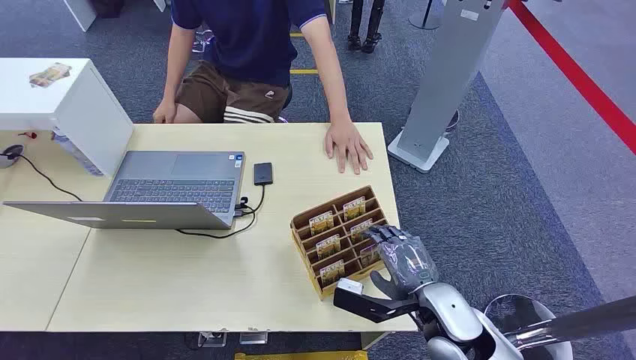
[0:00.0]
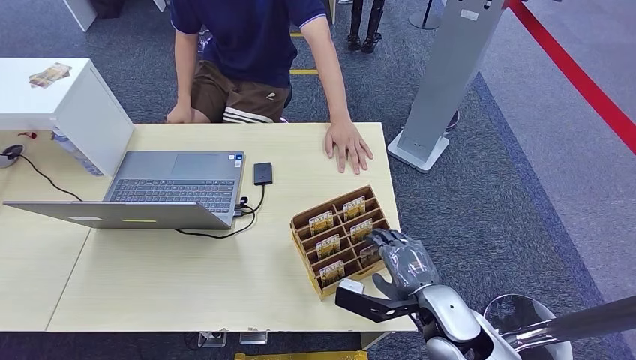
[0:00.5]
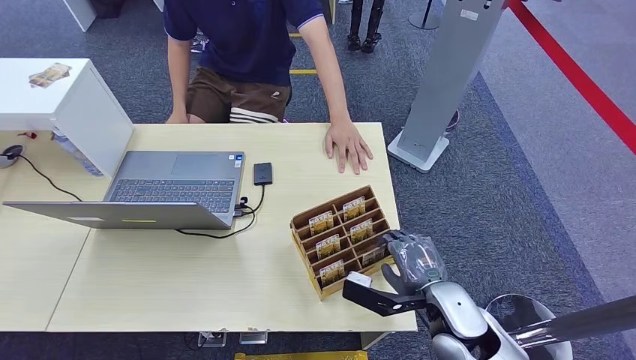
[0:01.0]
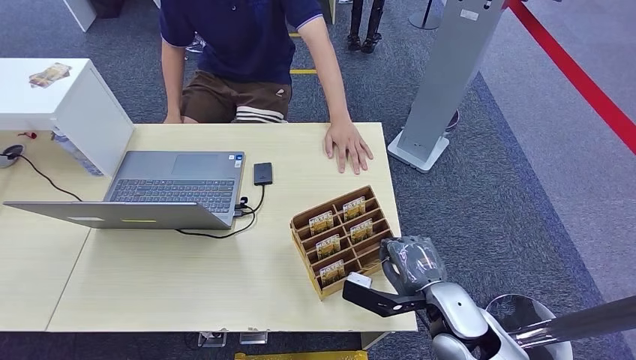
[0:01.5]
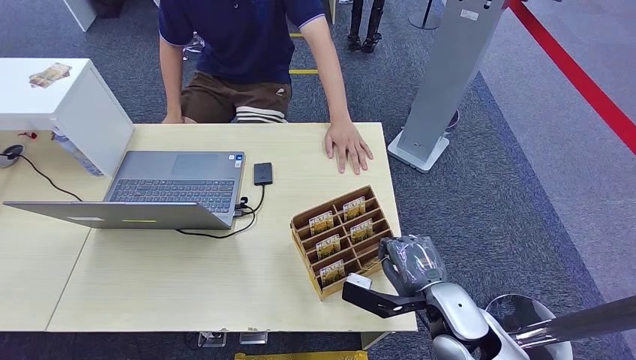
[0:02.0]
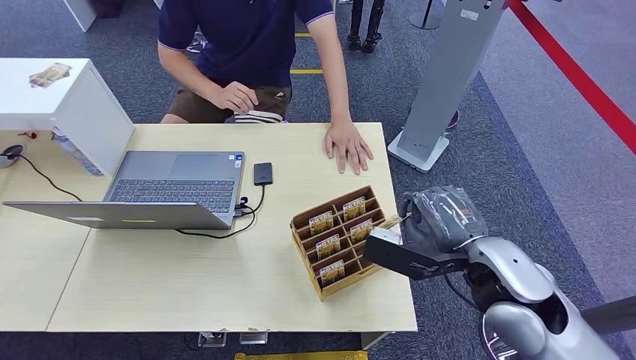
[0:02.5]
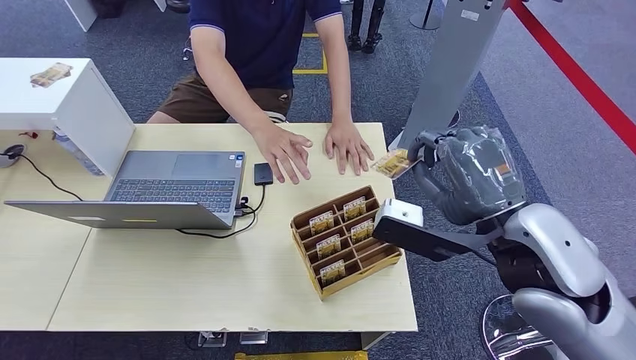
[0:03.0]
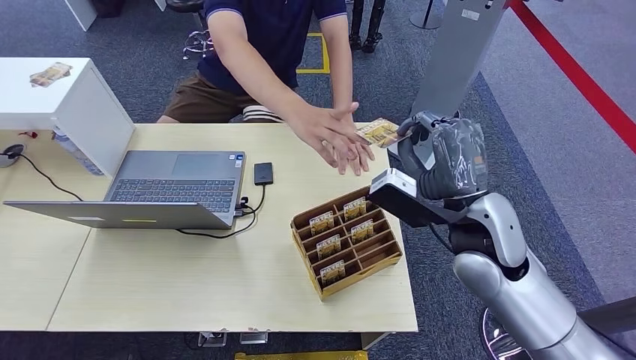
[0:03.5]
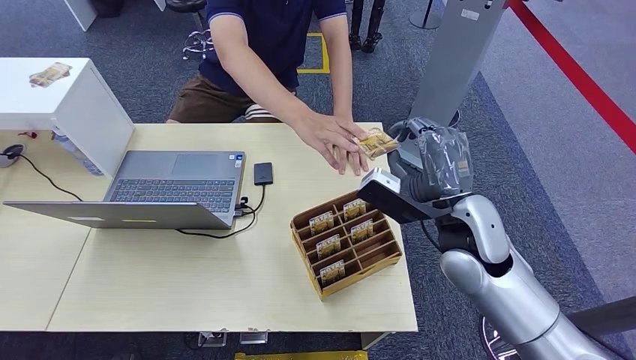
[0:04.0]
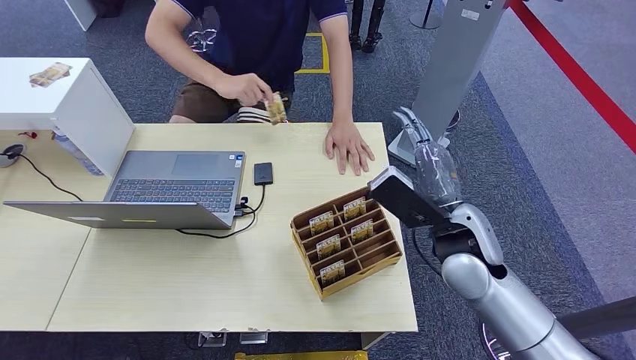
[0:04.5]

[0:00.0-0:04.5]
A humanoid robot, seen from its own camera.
Step, 0:00.0 to 0:01.5: Pick up the room card from the card holder.
Step, 0:02.0 to 0:04.5: Hand the room card to the target.
0:02.0 to 0:04.5: The right hand heads upward and forward, covering about 15 cm.

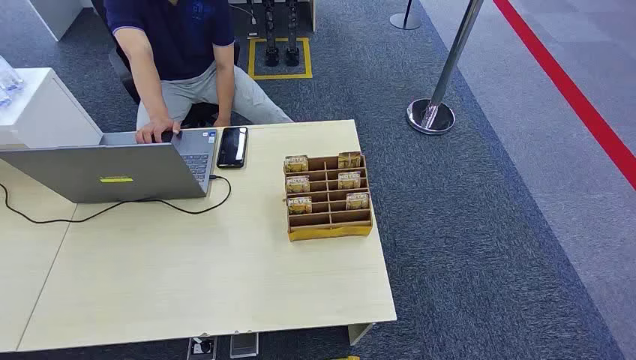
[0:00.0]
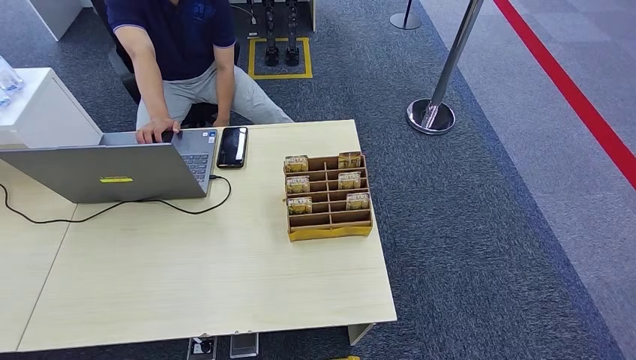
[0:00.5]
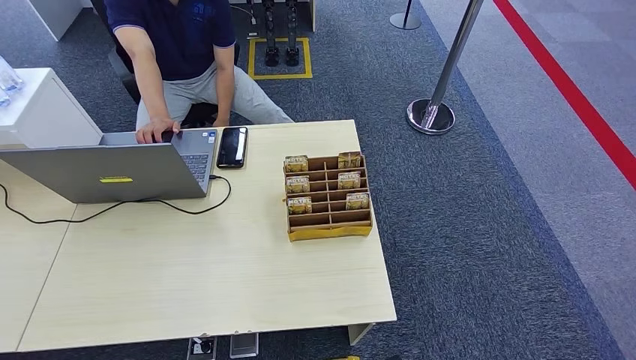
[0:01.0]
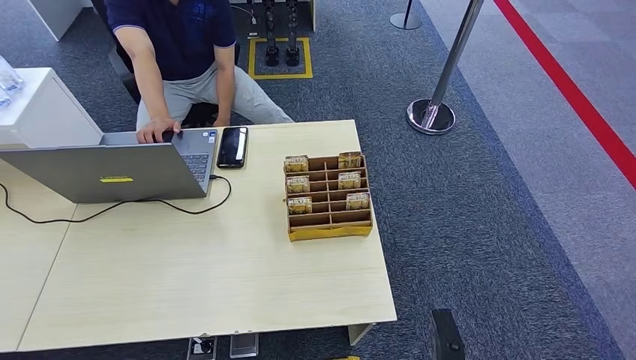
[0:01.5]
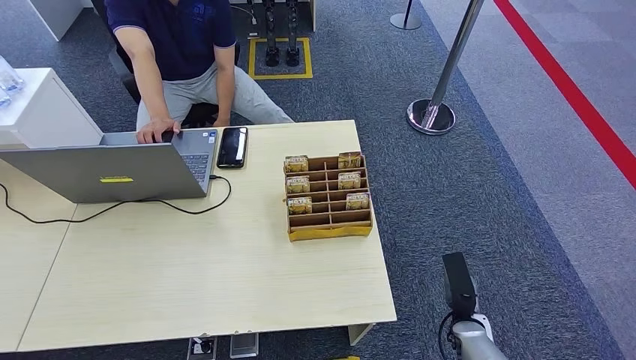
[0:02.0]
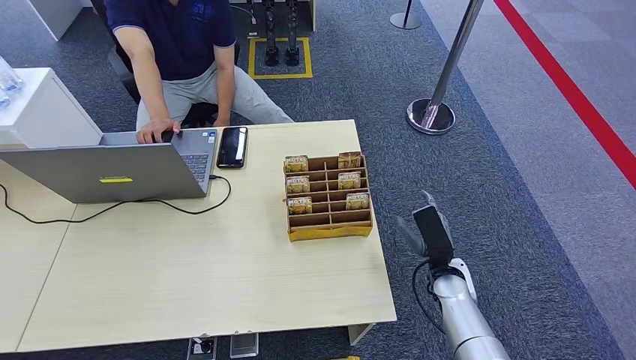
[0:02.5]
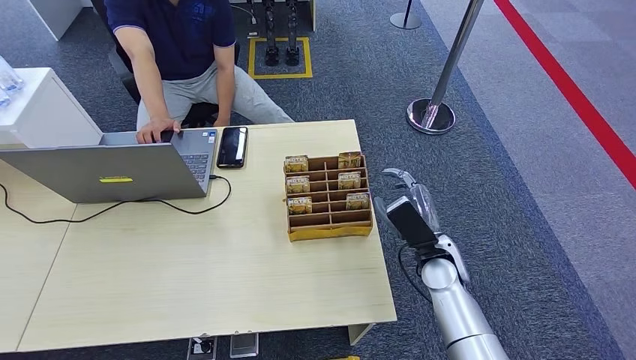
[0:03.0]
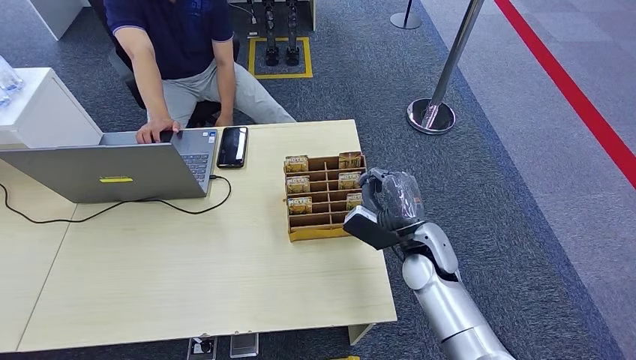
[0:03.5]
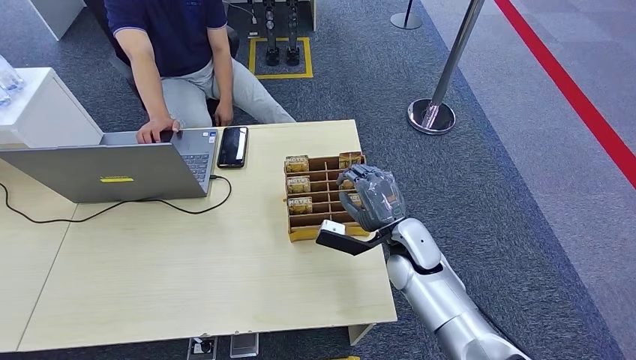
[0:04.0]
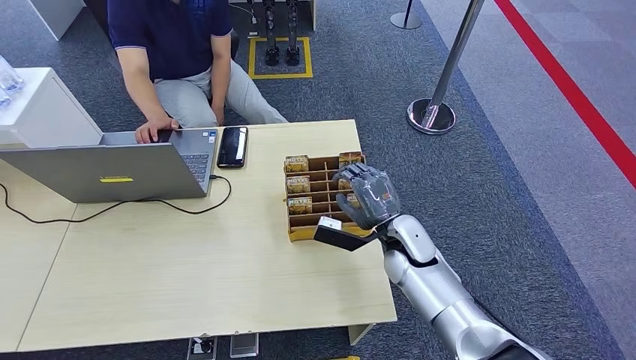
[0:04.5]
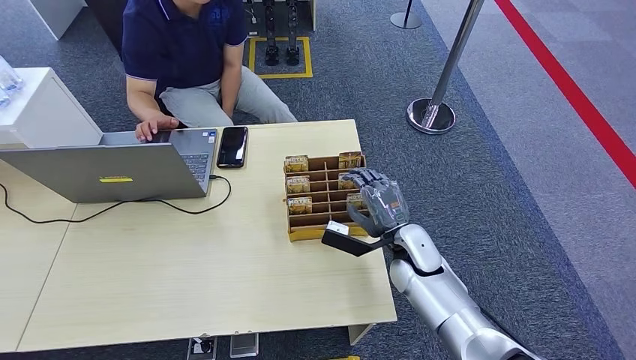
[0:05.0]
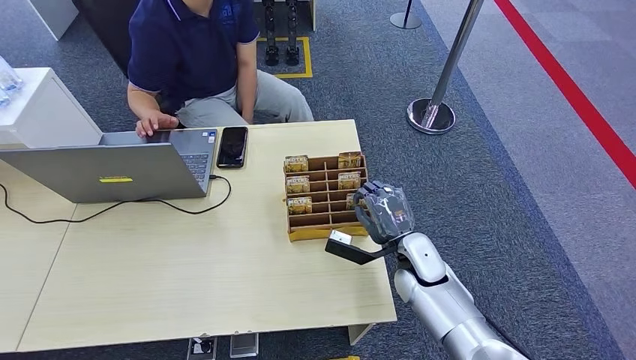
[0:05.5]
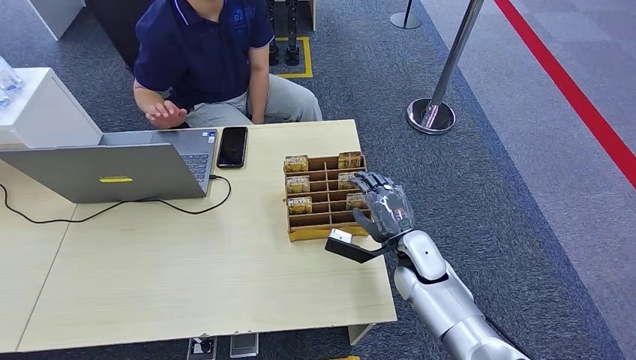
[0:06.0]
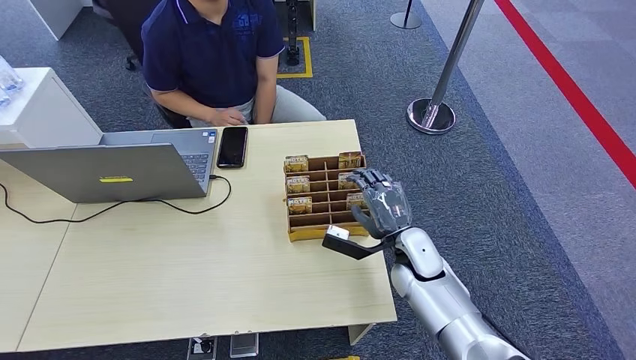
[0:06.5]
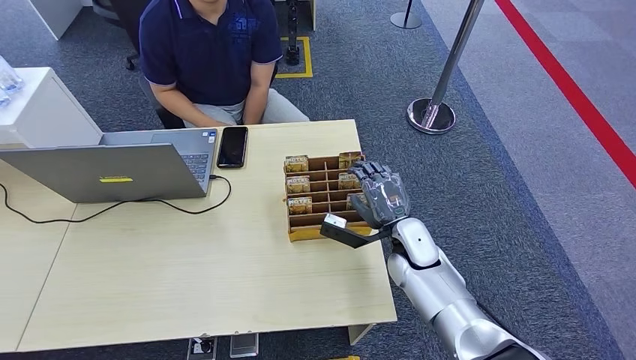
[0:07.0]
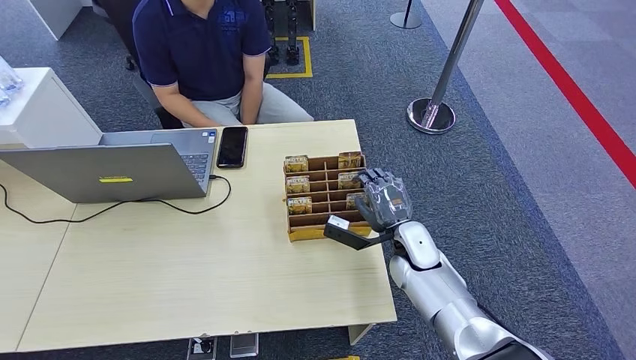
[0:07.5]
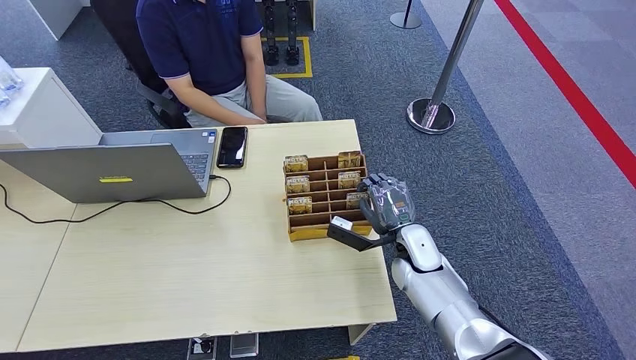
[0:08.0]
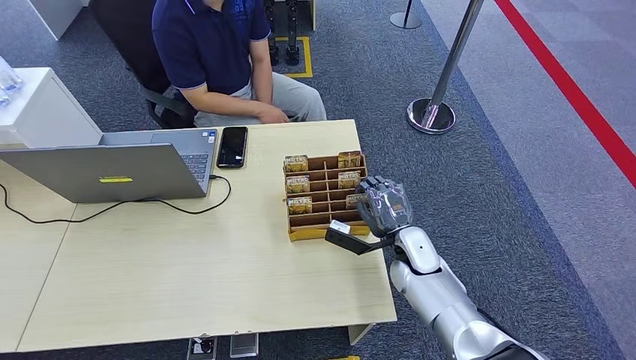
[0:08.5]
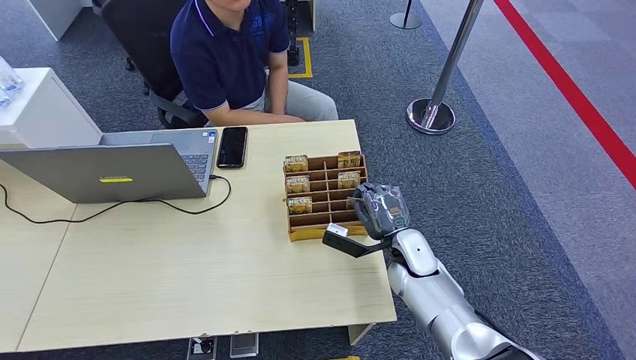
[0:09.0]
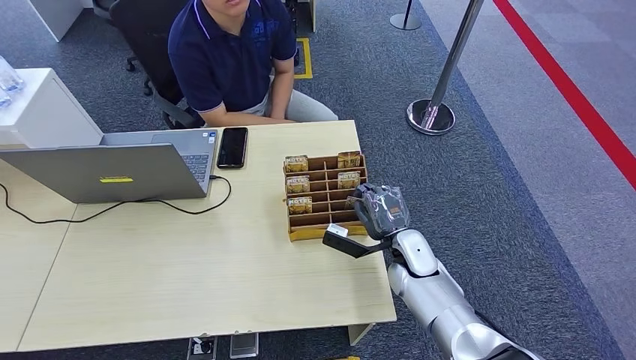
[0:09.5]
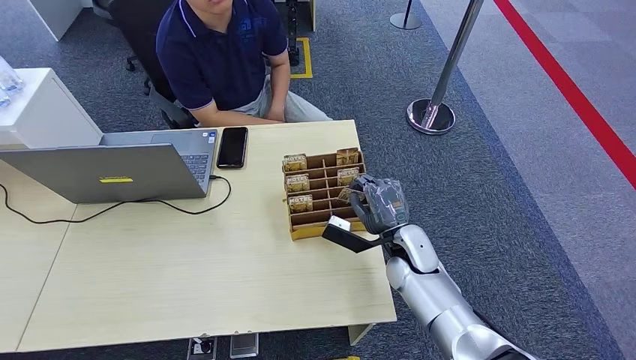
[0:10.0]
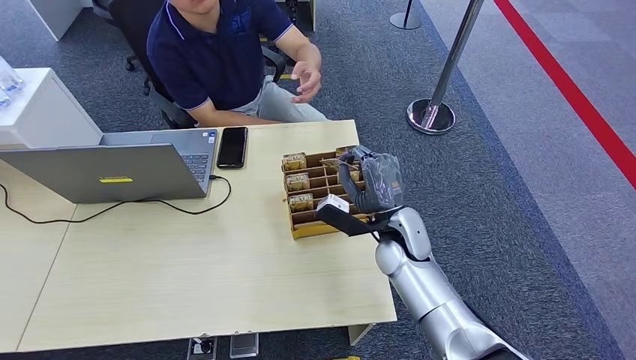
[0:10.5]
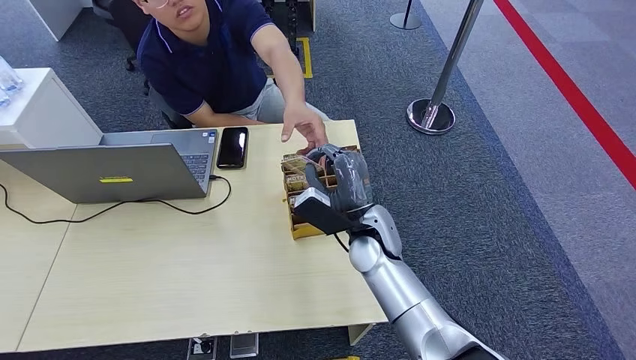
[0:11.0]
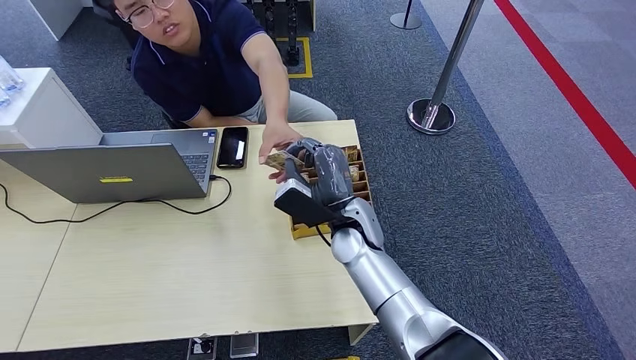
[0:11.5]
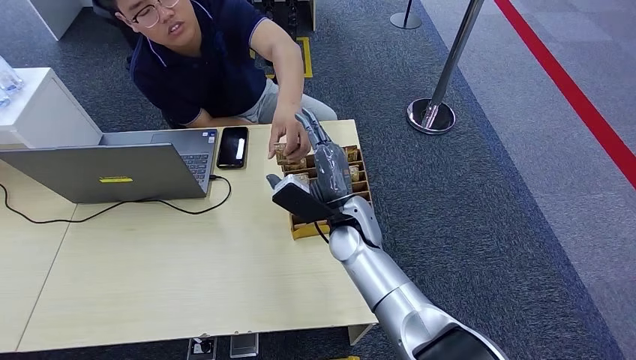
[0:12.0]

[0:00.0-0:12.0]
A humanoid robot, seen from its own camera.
Step, 0:00.0 to 0:10.5: Pick up the room card from the card holder.
Step, 0:11.0 to 0:12.0: Hand the room card to the target.
0:02.0 to 0:04.0: The right hand shifts approximately 25 cm upward, to the left and forward.
0:04.0 to 0:10.0: There are only small adjustments of the hands.
0:10.0 to 0:12.0: The right hand heads to the left and upward, covering some 15 cm.
